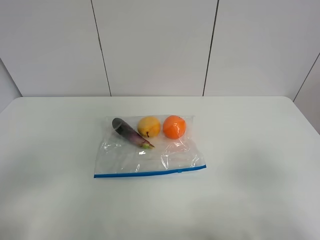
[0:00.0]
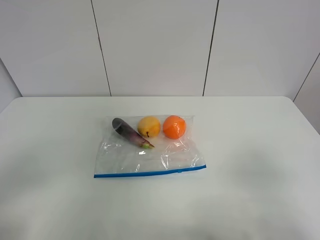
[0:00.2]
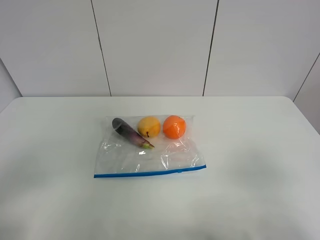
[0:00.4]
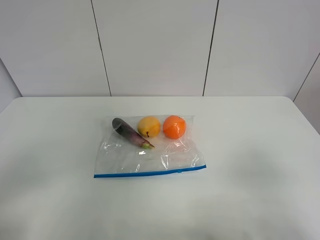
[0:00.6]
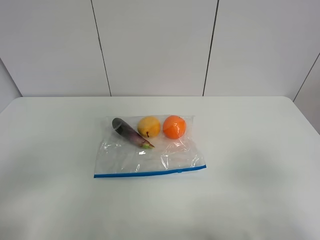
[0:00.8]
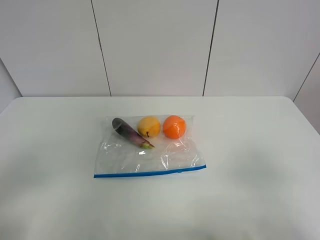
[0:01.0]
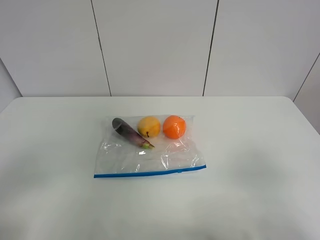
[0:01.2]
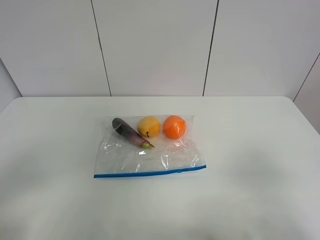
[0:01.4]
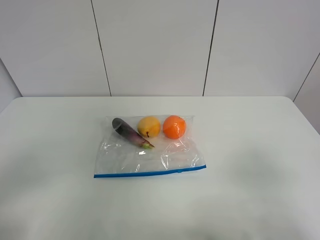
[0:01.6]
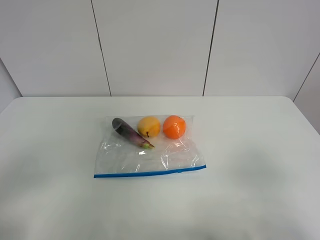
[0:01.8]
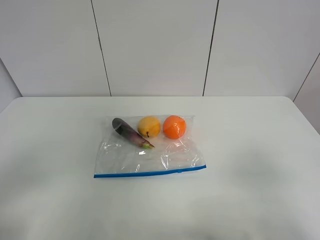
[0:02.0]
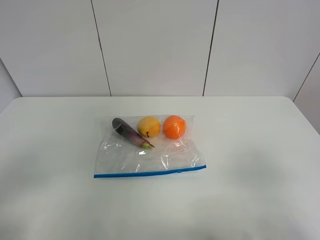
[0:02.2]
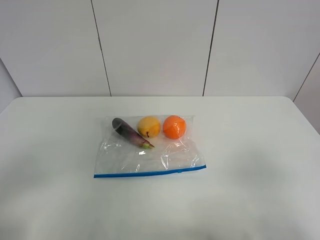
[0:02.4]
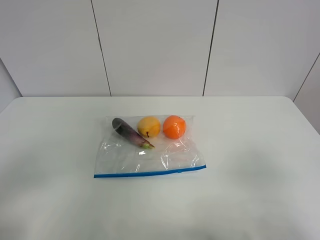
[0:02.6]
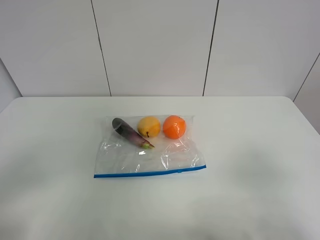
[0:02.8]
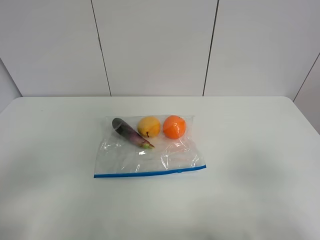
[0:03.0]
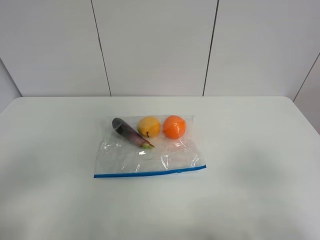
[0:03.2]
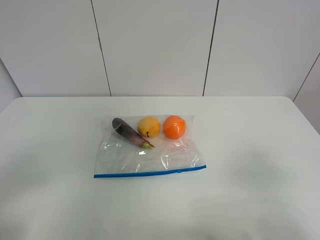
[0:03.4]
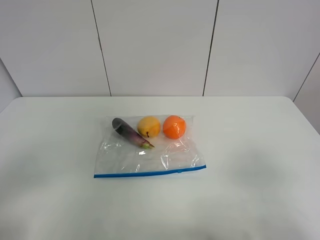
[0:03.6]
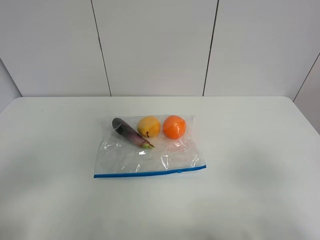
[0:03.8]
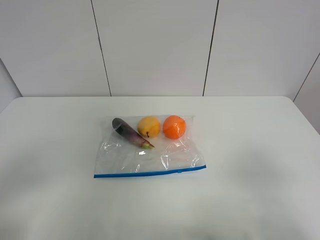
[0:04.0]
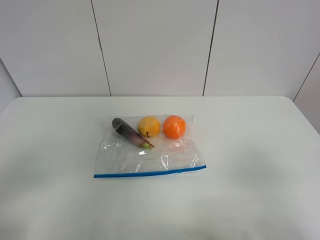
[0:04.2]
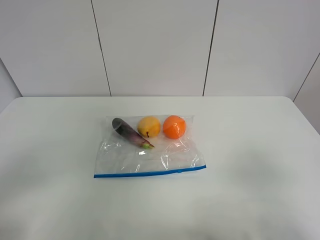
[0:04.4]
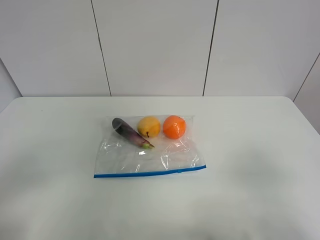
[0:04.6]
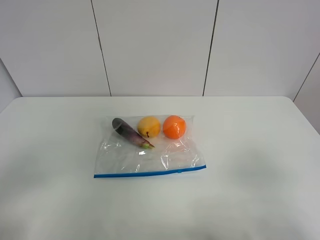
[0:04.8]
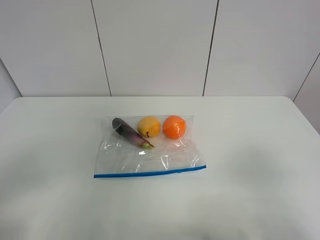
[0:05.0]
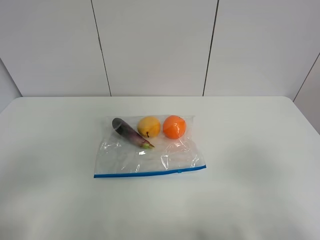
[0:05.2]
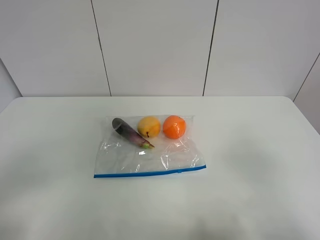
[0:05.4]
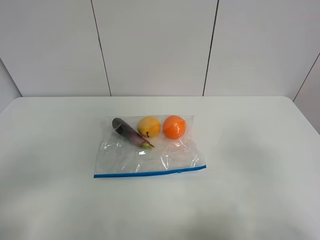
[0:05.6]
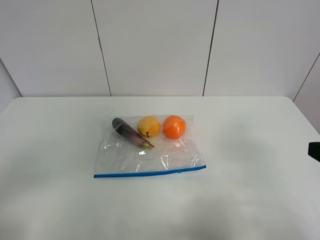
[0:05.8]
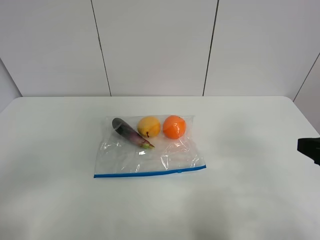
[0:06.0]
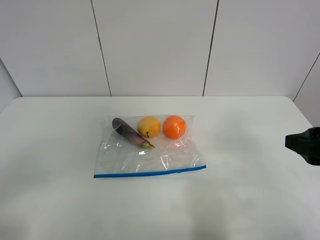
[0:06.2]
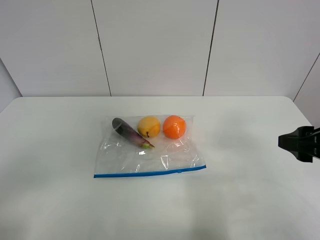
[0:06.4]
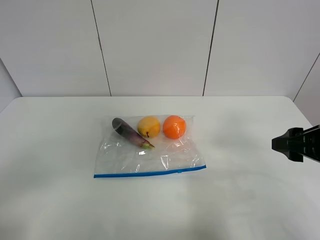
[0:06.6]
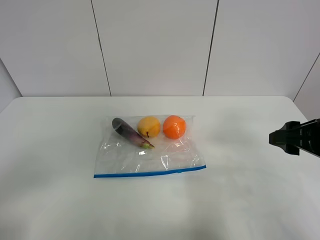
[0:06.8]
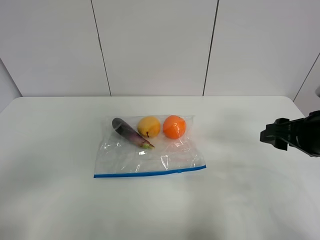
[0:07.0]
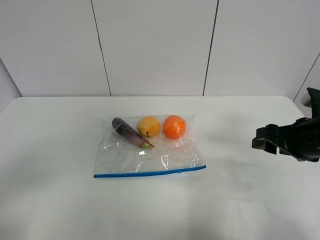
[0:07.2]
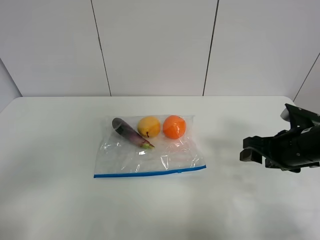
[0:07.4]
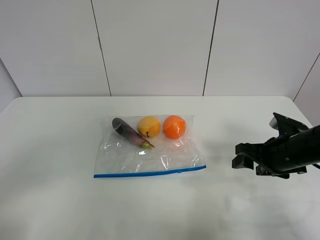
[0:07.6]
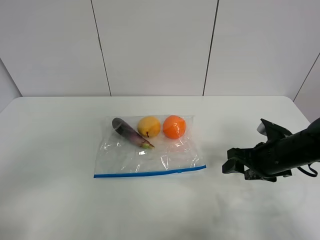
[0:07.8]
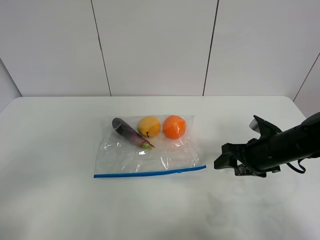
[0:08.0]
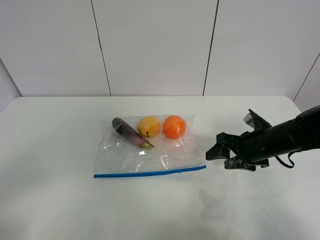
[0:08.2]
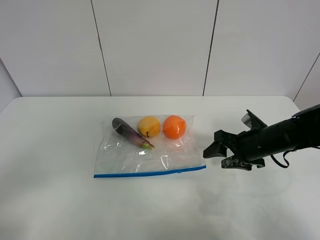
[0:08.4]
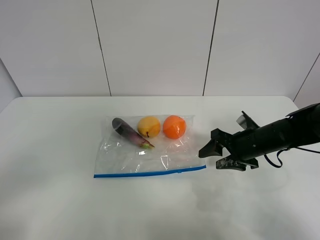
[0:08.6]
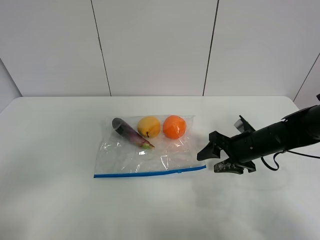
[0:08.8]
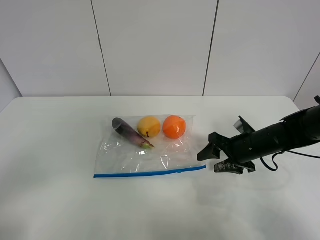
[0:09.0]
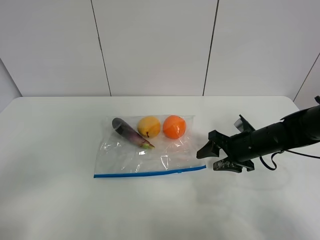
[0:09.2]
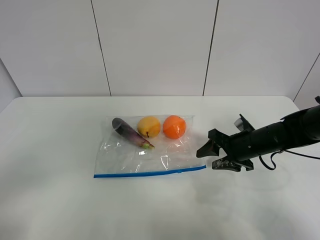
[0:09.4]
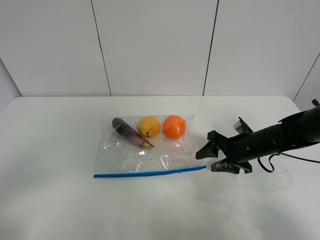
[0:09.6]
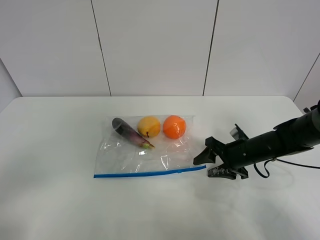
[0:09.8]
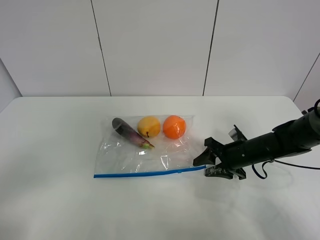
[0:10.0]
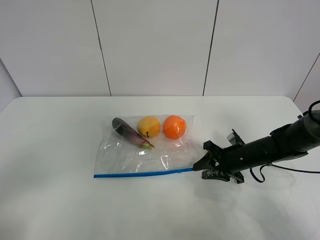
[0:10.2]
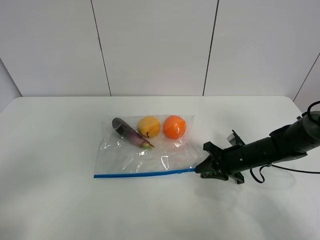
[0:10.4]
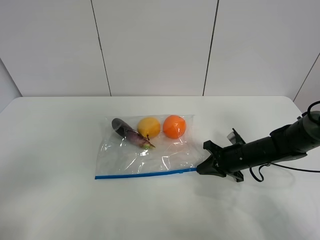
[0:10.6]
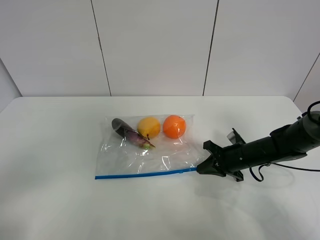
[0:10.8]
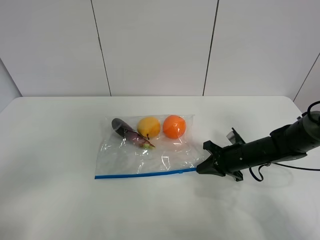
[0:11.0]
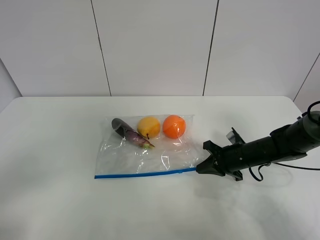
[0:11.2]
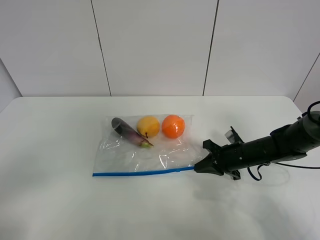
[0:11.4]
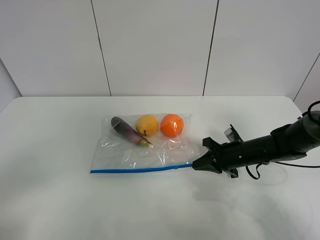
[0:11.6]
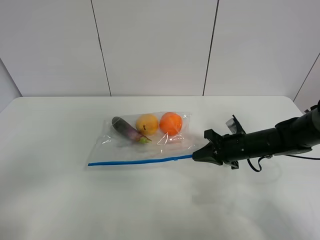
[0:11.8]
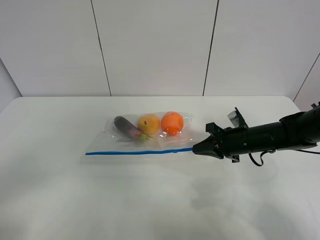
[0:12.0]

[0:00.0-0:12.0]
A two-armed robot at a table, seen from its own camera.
Step, 0:00.0 to 0:10.8: Grasp the fruit bag with right gripper.
0:00.0 to 0:04.4: The two grippers keep their place.
0:04.4 to 0:06.0: The right gripper travels forward by about 10 cm.
0:06.0 to 0:07.6: The right gripper is displaced forward and downward by some 15 cm.
0:07.6 to 0:09.0: The right gripper shifts about 5 cm forward.
0:09.0 to 0:10.4: The right gripper closes its fingers.
0:10.4 to 0:12.0: The right gripper travels upward by approximately 5 cm.

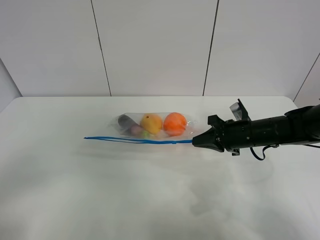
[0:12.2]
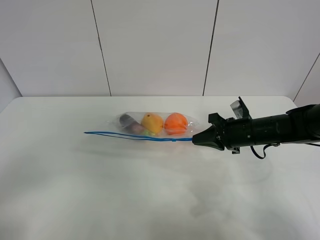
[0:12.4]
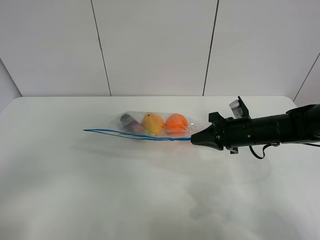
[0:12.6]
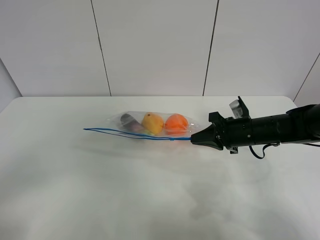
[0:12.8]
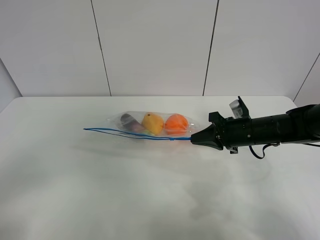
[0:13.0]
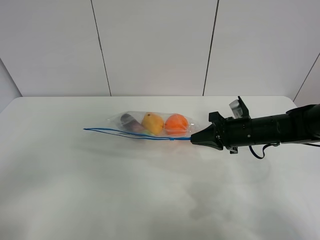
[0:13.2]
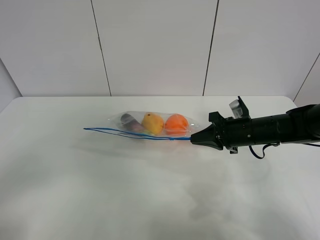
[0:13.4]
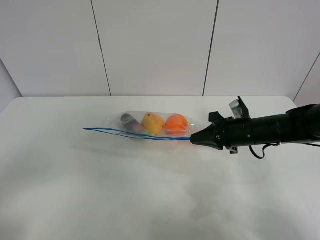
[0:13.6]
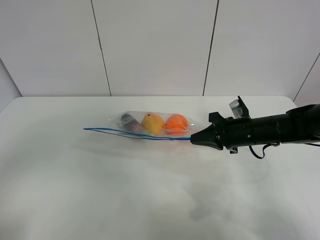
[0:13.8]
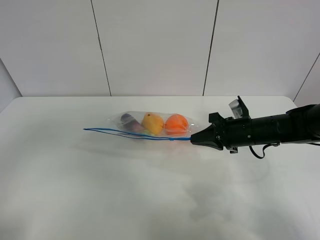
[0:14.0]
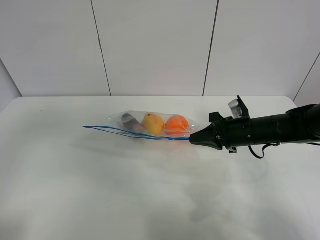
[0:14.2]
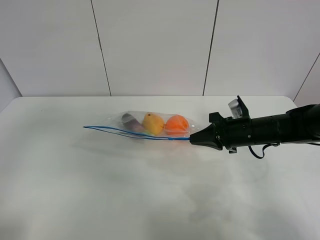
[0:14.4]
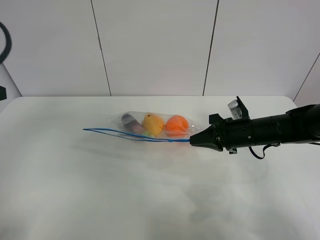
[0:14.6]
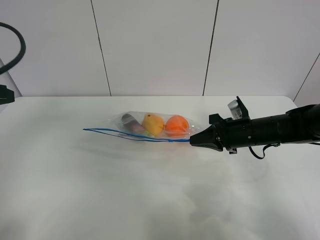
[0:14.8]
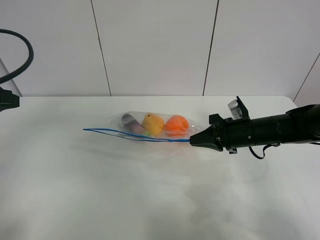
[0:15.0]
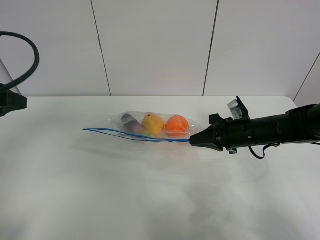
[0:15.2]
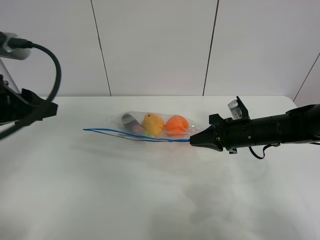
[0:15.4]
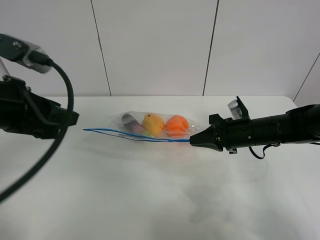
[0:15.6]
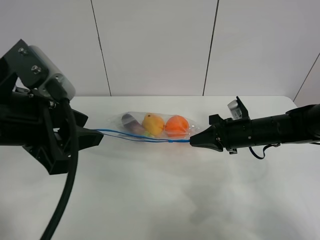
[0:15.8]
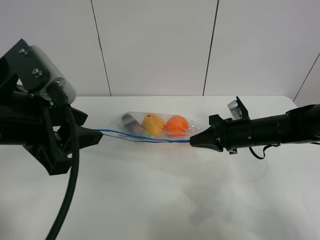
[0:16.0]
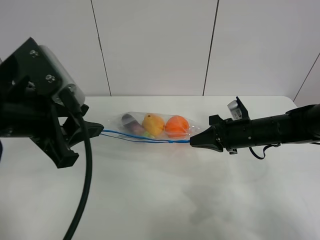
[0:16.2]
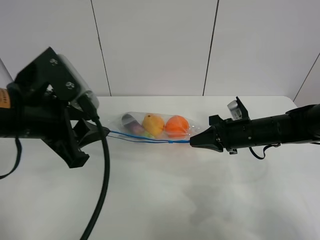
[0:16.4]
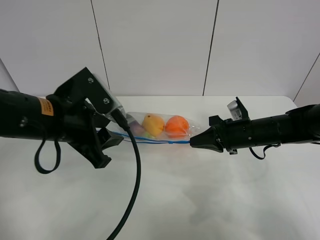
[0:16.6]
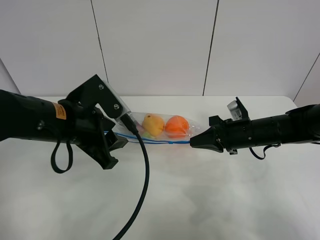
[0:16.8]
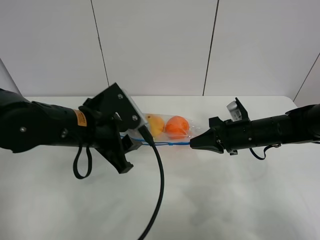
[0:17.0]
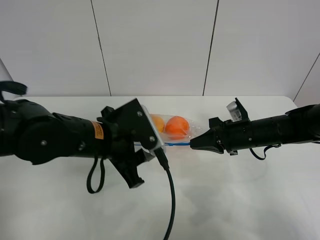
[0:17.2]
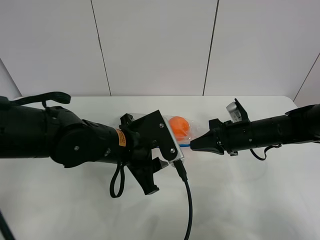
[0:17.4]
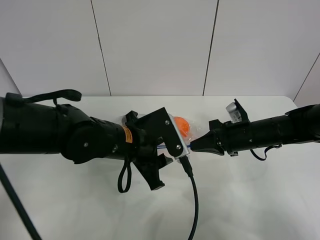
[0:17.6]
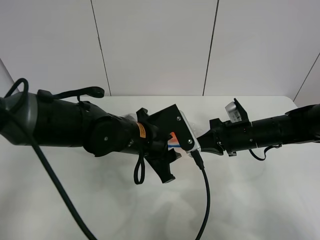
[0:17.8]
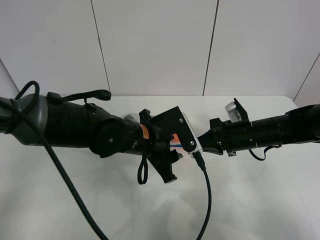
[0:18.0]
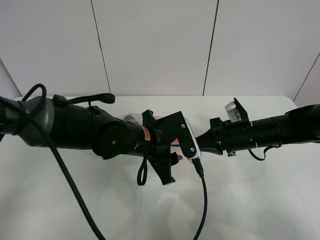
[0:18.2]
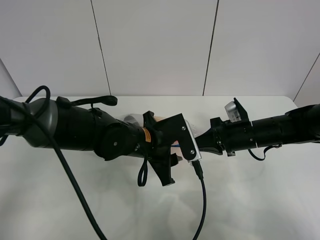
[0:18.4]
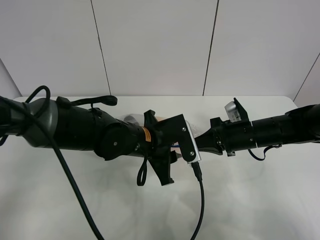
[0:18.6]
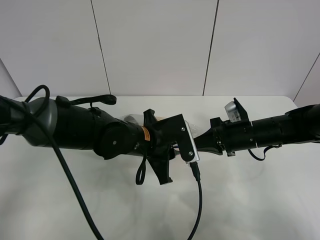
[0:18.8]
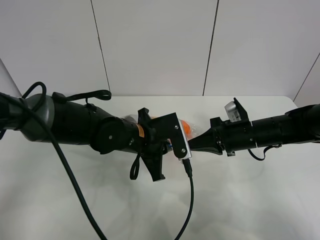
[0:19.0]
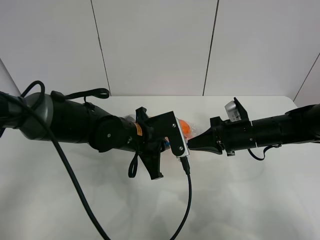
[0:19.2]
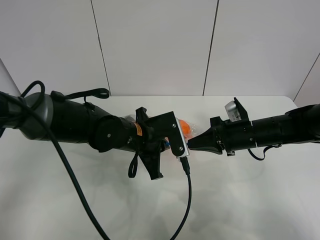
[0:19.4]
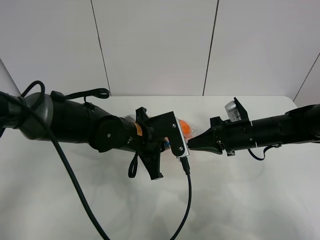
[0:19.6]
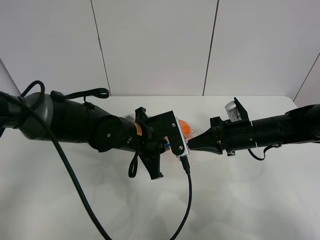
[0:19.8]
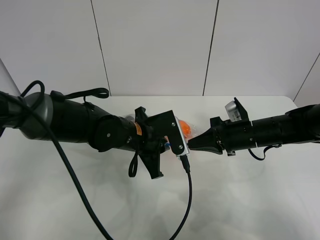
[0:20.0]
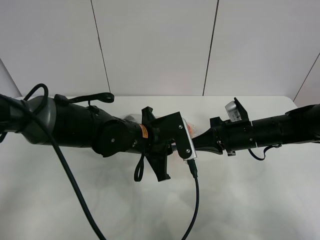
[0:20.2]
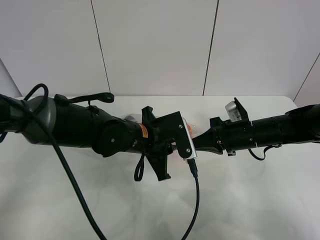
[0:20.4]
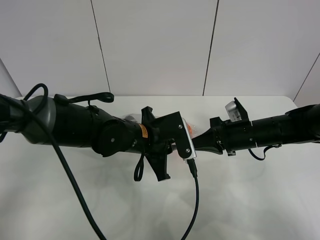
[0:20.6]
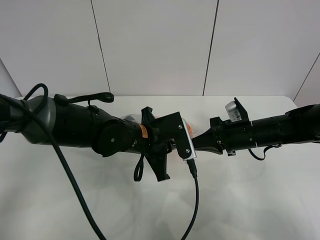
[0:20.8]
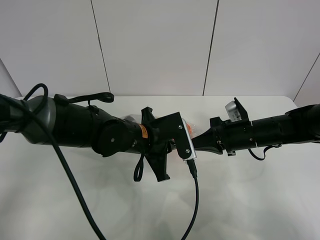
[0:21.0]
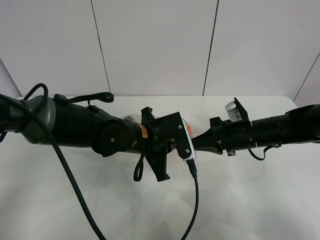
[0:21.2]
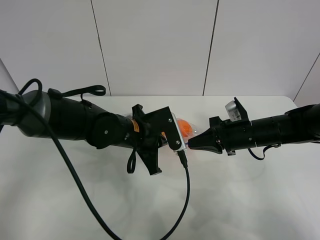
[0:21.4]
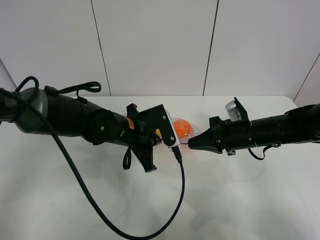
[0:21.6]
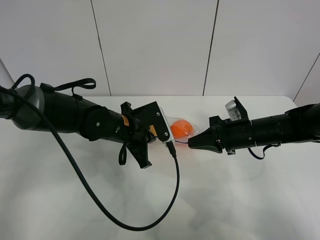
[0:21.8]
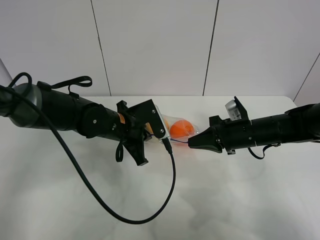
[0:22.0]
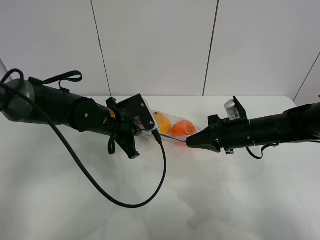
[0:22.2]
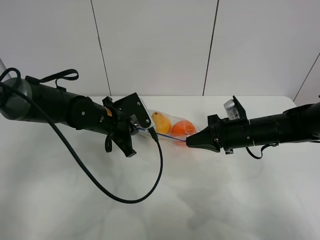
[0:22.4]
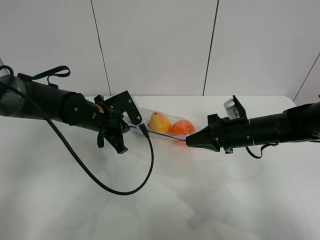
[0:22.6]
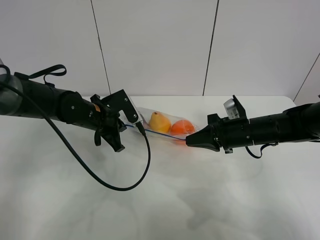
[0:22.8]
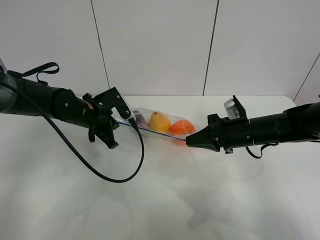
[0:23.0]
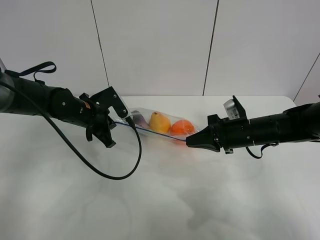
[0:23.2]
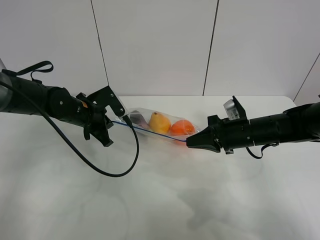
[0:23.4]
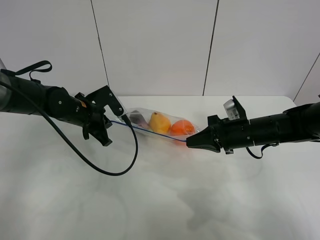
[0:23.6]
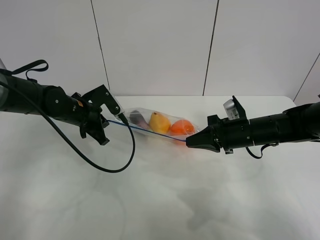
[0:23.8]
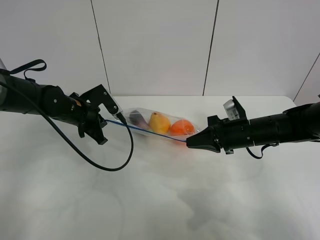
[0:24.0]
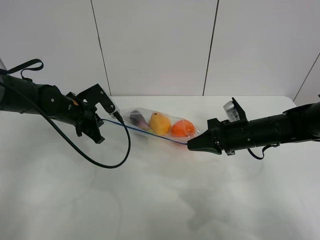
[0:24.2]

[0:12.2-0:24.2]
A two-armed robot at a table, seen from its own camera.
0:12.2 to 0:13.8: The left gripper travels upward by approximately 5 cm.
0:13.8 to 0:15.2: The left gripper heads forward, covering approximately 20 cm.
0:15.2 to 0:16.6: The left gripper is displaced to the right by about 15 cm.
0:16.6 to 0:18.2: The left gripper goes some 15 cm to the right and downward.
0:18.2 to 0:19.8: The left gripper closes up.
0:19.8 to 0:21.2: The grippers make only small movements.
0:21.2 to 0:22.6: The left gripper moves to the left and forward, some 15 cm.
0:22.6 to 0:24.2: The left gripper is displaced to the left by roughly 5 cm.
